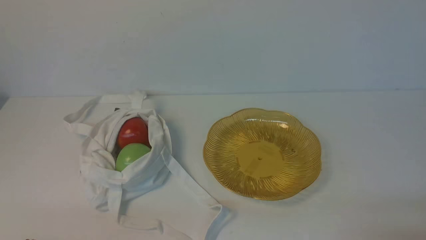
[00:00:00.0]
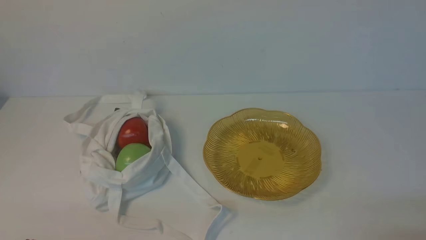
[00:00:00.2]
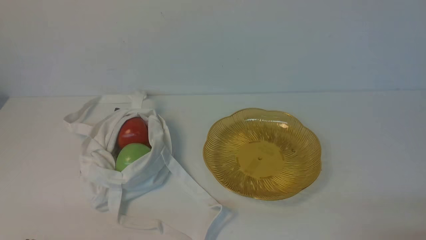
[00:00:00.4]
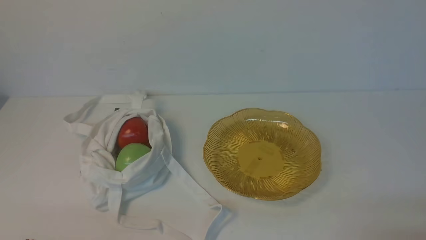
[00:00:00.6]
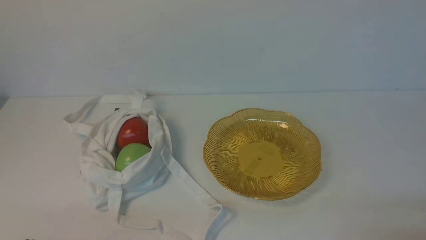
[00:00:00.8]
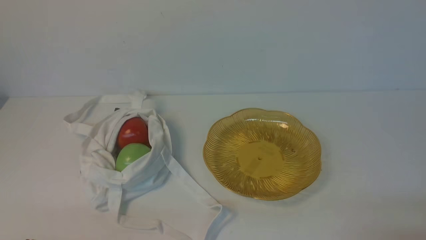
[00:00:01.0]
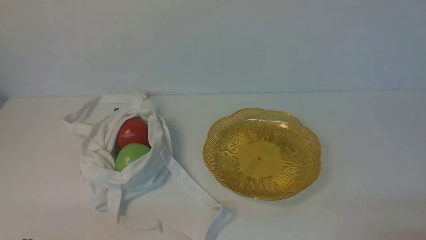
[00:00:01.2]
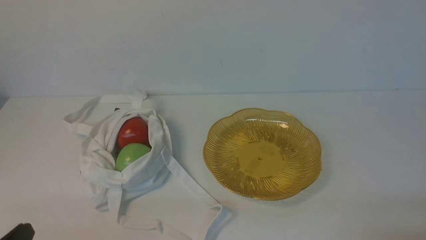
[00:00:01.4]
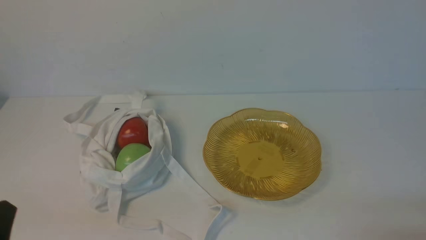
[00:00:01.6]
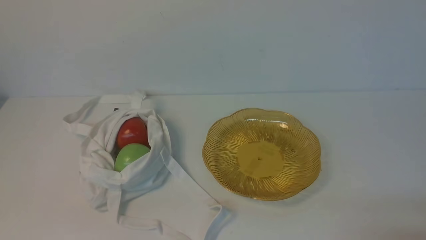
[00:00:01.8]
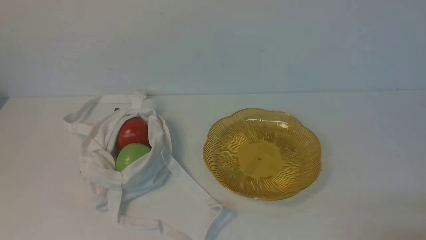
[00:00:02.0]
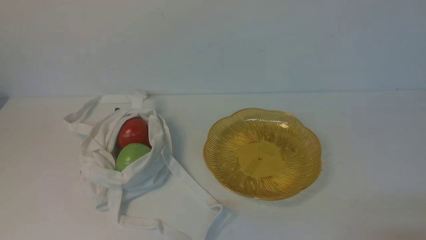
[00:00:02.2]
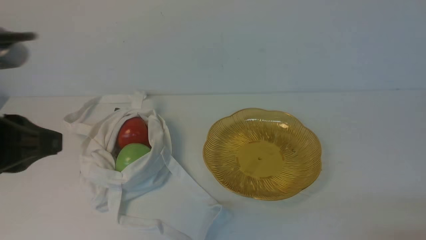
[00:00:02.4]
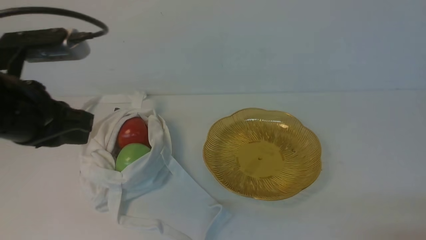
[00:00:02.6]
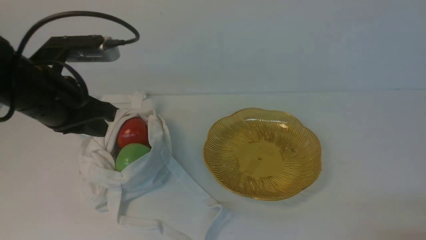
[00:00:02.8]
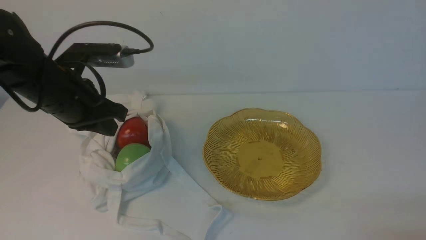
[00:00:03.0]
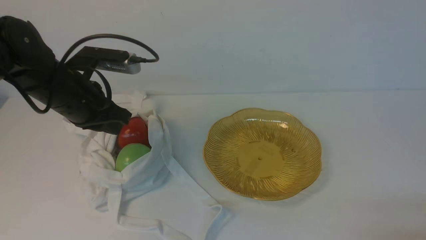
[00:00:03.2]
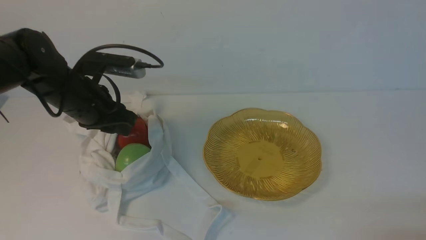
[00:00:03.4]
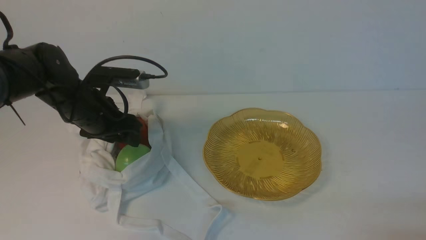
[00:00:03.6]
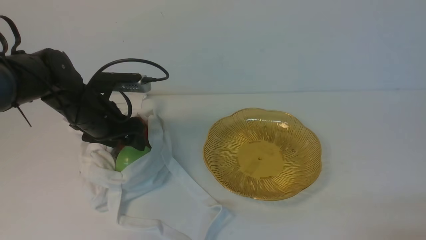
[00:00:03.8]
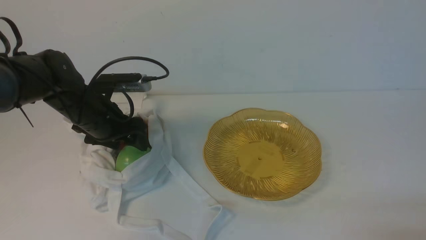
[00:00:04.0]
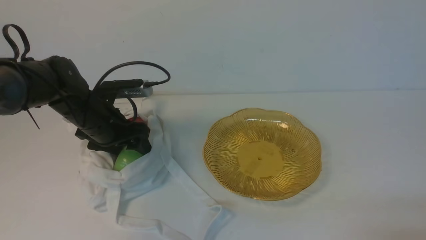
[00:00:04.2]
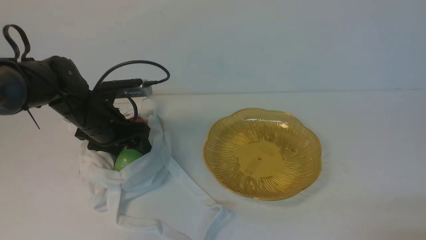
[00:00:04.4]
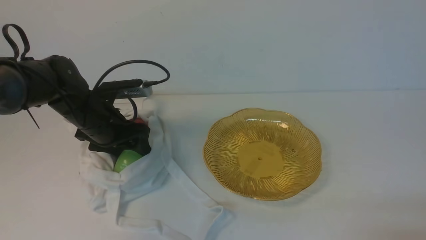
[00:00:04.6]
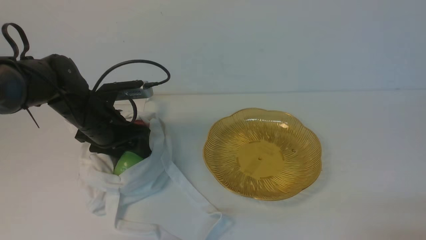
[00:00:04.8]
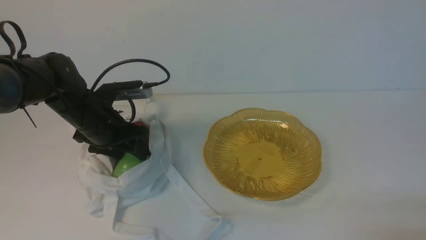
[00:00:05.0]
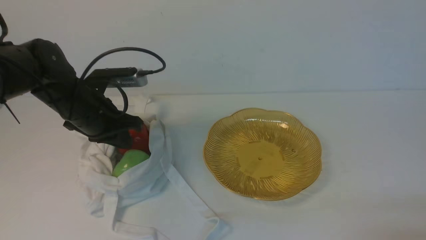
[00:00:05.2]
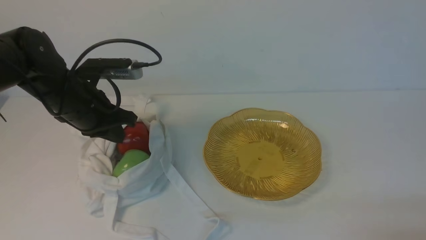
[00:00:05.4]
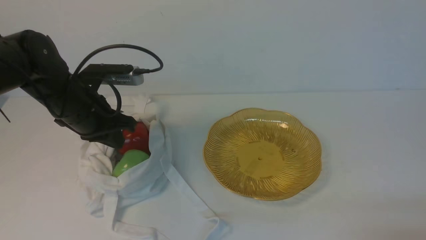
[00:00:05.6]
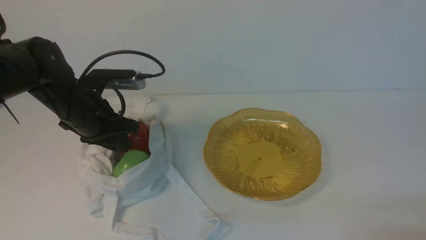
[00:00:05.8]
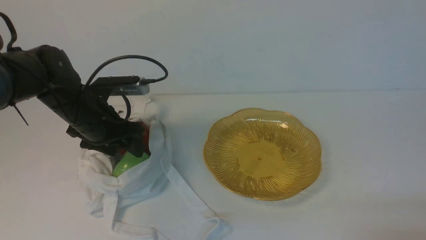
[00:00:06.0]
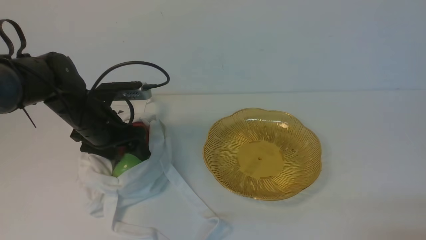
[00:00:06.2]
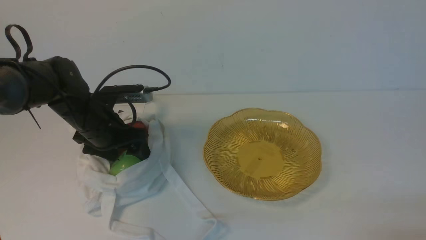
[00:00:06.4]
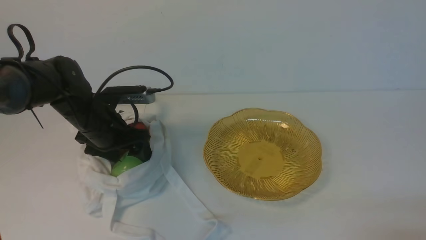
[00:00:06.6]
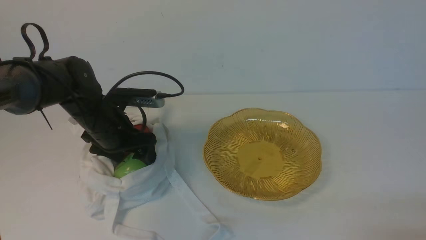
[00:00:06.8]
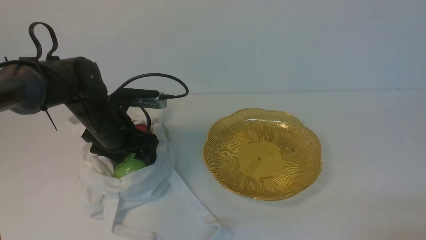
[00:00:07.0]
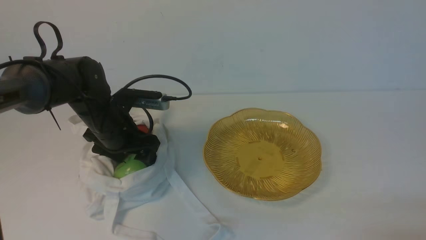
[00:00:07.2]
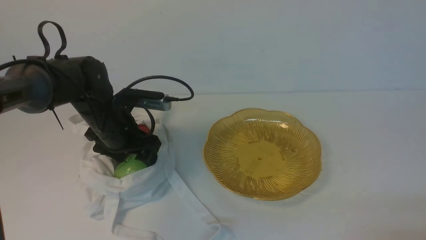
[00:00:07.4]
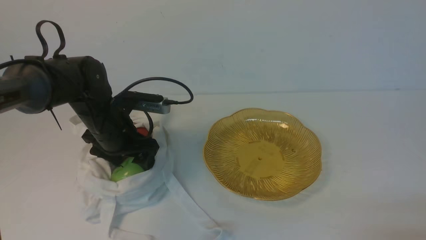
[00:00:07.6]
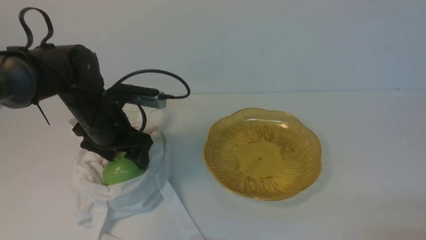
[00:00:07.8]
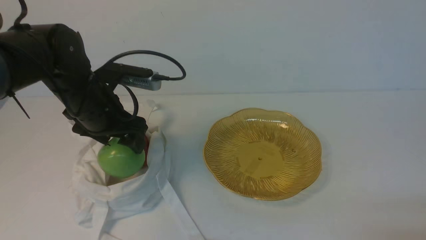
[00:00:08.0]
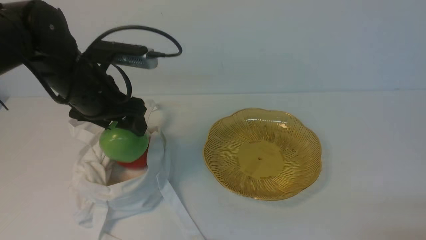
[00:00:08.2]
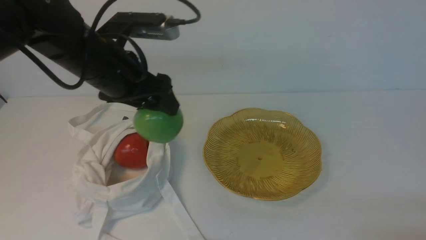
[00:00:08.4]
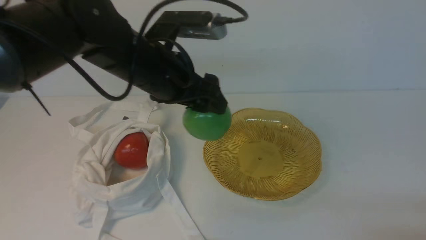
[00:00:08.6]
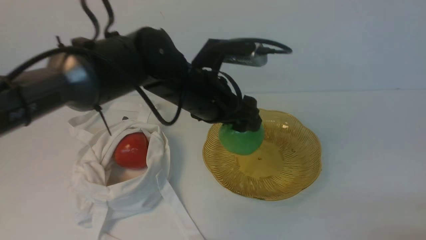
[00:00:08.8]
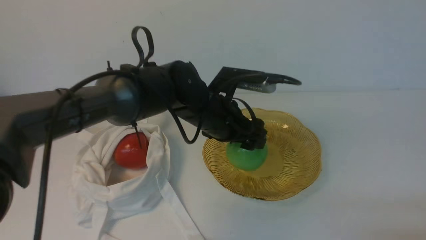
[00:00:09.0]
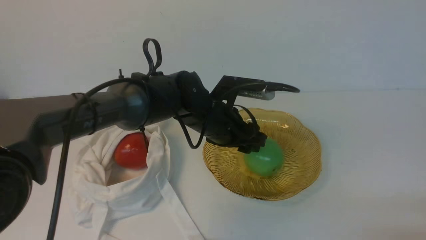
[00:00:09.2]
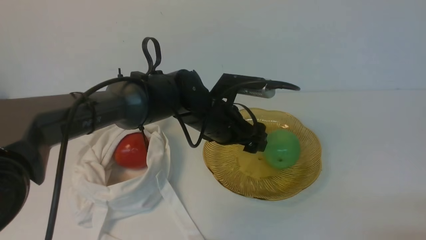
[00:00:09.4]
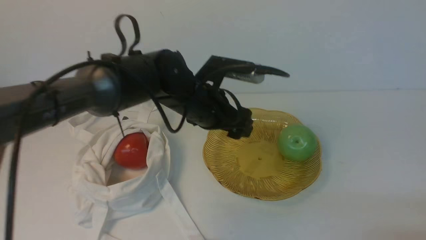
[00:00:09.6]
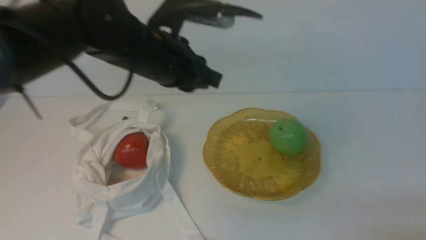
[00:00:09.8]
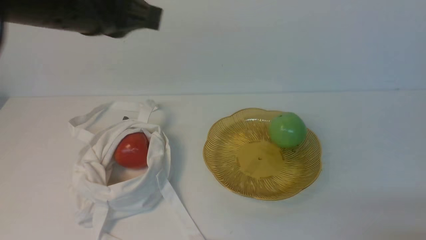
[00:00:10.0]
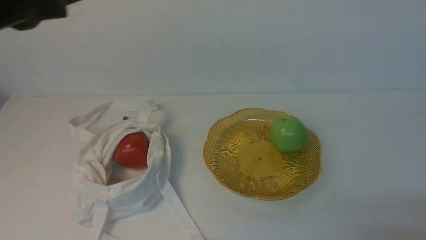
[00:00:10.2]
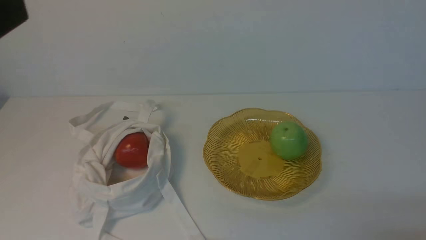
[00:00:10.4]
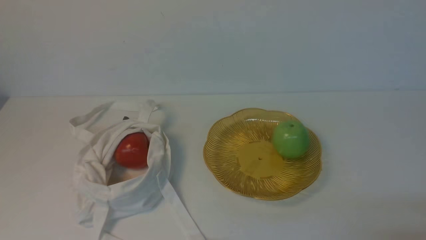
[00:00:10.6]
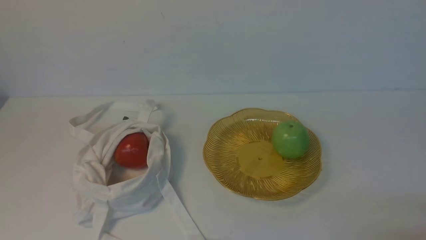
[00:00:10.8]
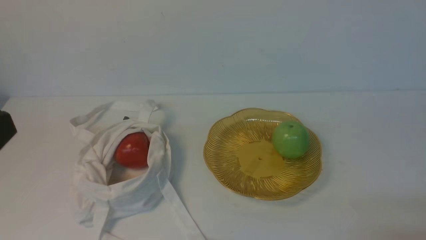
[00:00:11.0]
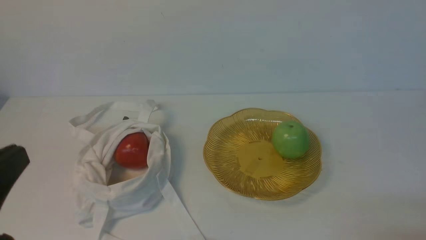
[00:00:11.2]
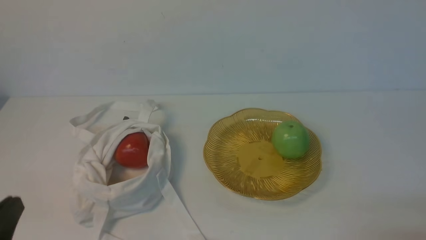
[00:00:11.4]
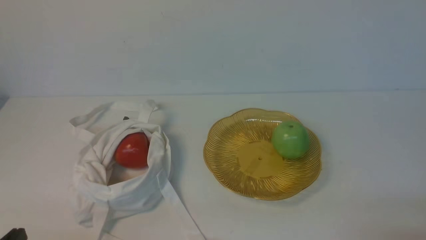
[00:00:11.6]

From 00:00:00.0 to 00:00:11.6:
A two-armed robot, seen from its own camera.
Step, from 00:00:00.0 to 00:00:08.0: use the left arm to grab an apple from the bag.
Step, from 00:00:08.2 to 00:00:09.2: use the left arm to put the apple into the empty plate on the right.
From 00:00:01.4 to 00:00:02.8: The left gripper goes about 25 cm forward and upward.
From 00:00:02.8 to 00:00:04.4: The left gripper moves downward and forward, approximately 15 cm, and opens up.
From 00:00:04.4 to 00:00:05.8: The left gripper closes.
From 00:00:05.8 to 00:00:07.2: The left gripper shifts by some 5 cm, and opens.
From 00:00:07.2 to 00:00:08.8: The left gripper heads to the right and upward, covering roughly 15 cm.
From 00:00:08.8 to 00:00:10.2: The left gripper shifts about 30 cm upward, backward and to the left, and closes up.
From 00:00:10.2 to 00:00:11.6: The left gripper heads downward, covering approximately 30 cm.

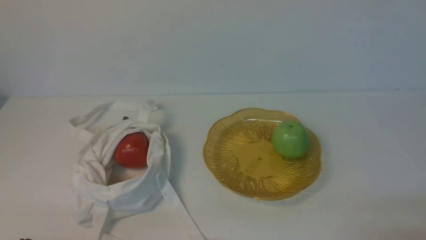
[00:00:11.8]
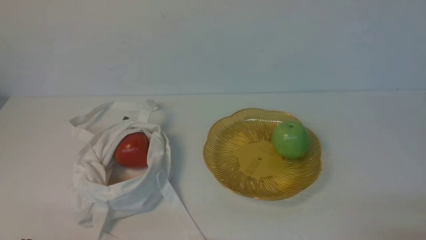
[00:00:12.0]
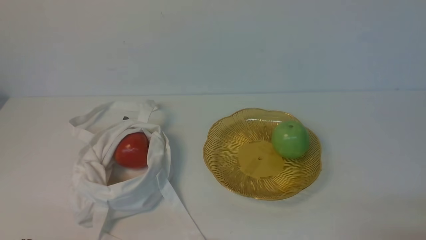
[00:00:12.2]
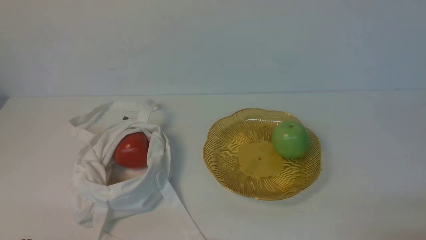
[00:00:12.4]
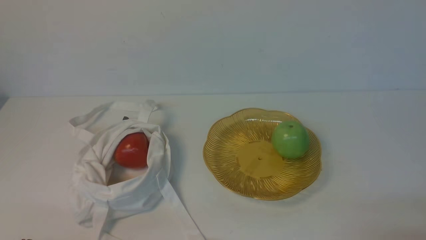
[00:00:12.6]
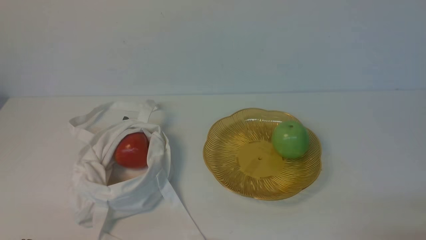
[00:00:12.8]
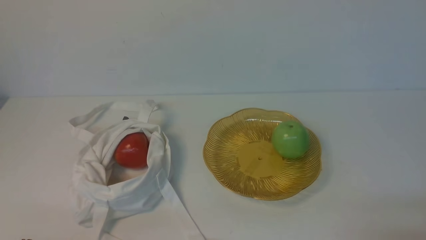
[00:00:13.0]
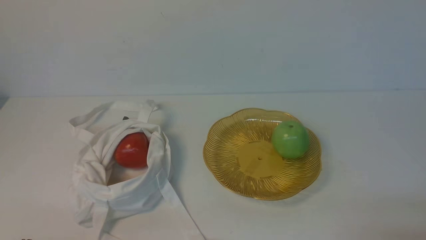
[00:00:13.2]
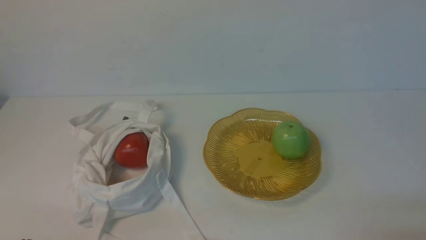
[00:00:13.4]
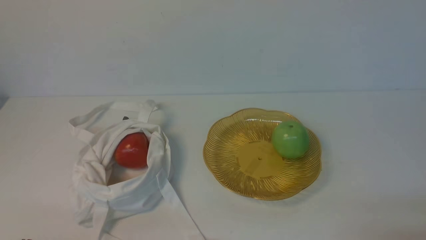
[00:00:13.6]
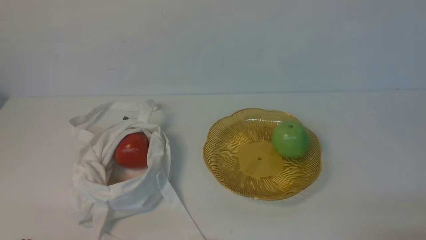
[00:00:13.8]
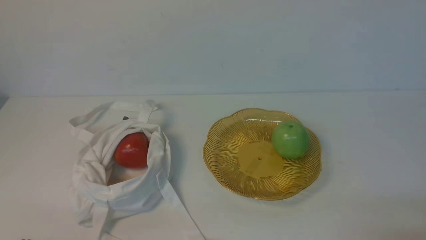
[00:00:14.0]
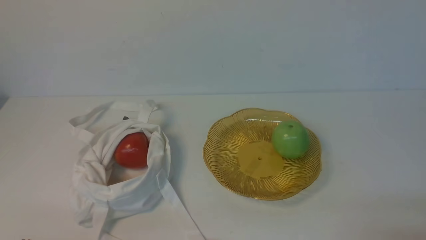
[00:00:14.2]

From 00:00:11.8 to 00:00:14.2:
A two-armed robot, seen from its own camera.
From 00:00:11.8 to 00:00:14.2: Both grippers stay put.
